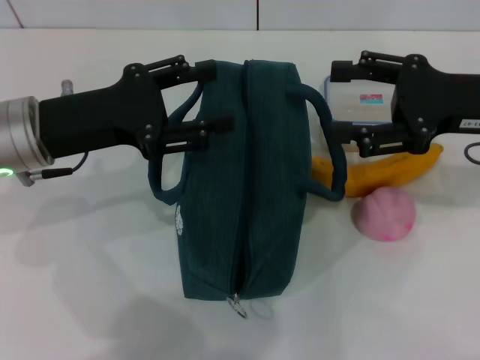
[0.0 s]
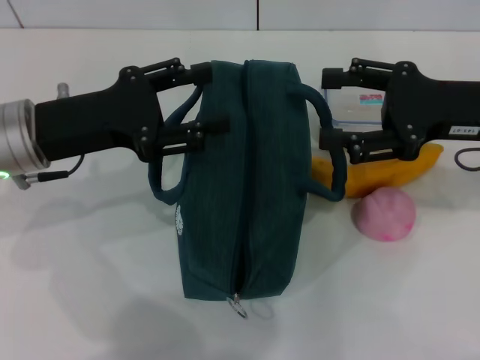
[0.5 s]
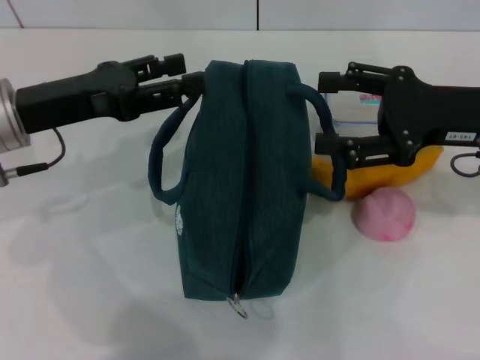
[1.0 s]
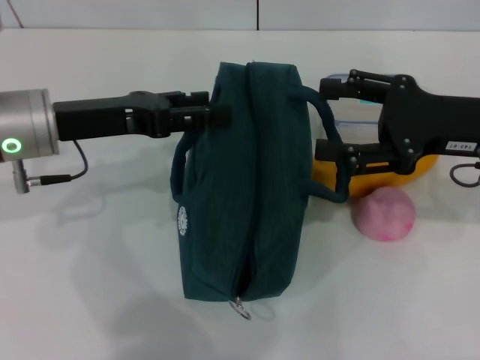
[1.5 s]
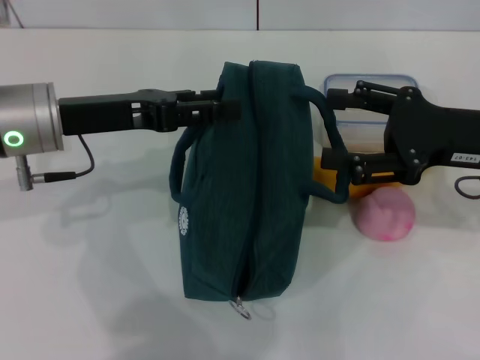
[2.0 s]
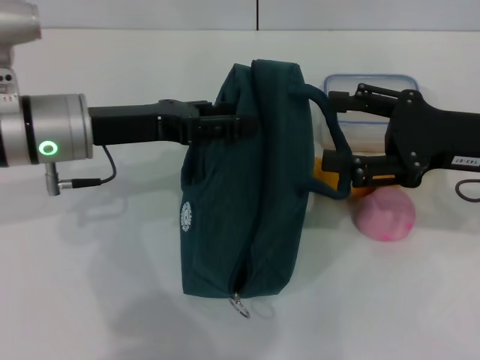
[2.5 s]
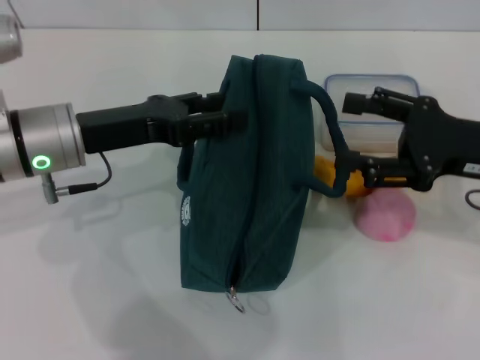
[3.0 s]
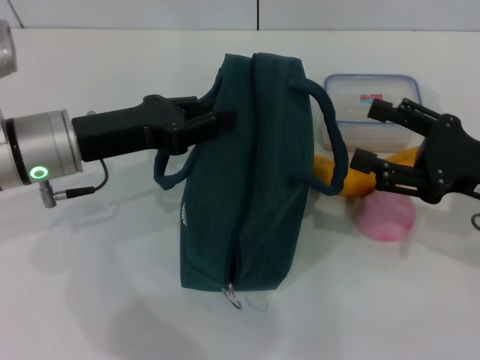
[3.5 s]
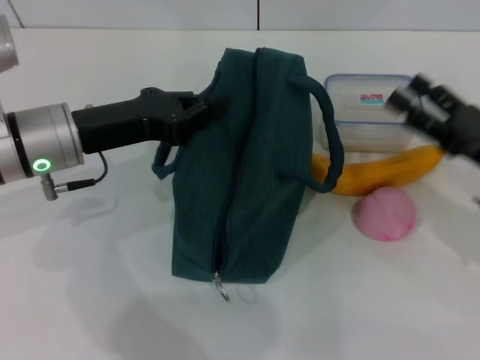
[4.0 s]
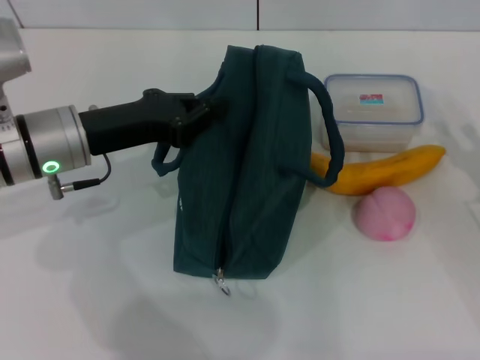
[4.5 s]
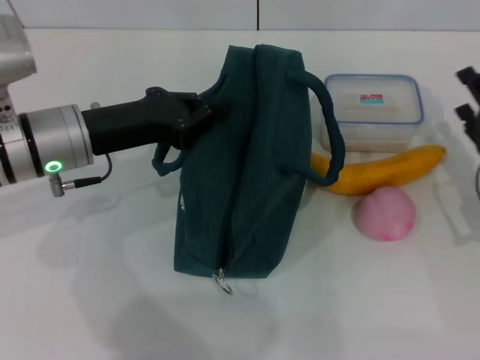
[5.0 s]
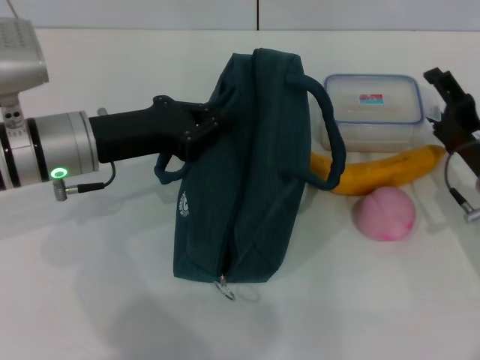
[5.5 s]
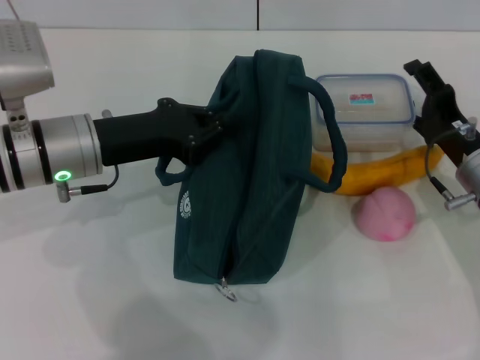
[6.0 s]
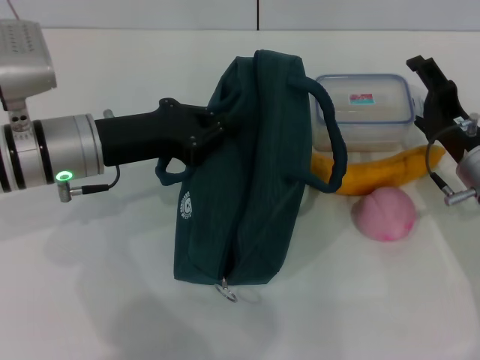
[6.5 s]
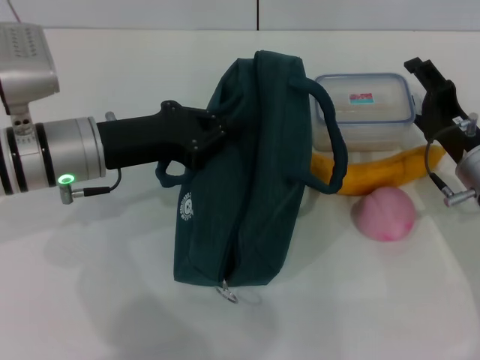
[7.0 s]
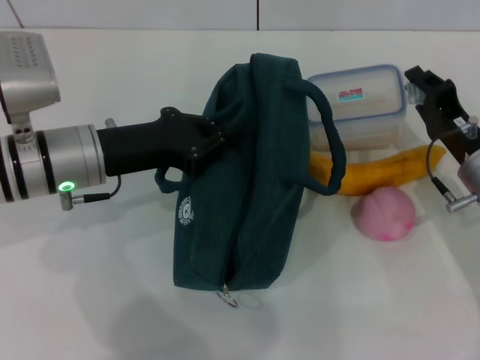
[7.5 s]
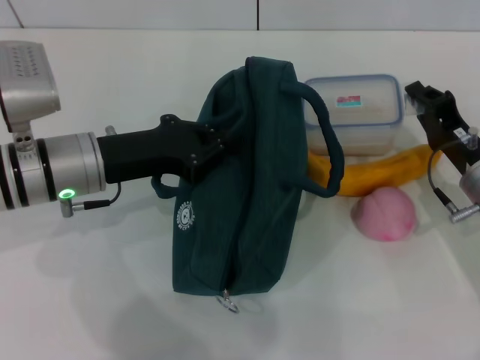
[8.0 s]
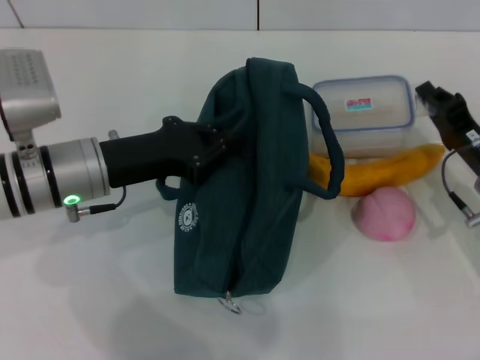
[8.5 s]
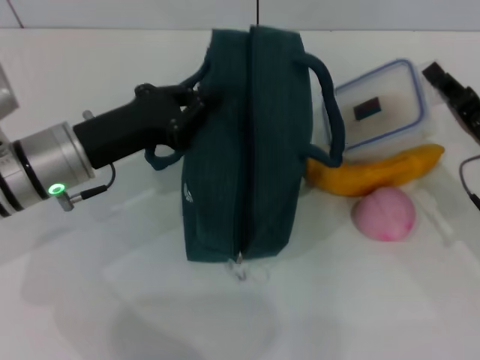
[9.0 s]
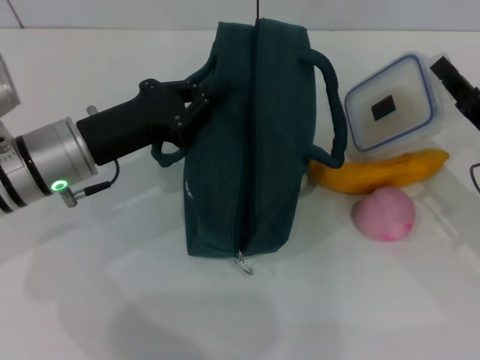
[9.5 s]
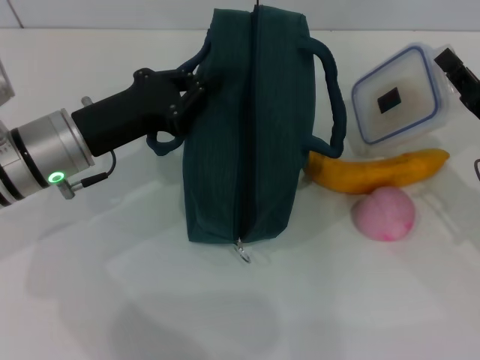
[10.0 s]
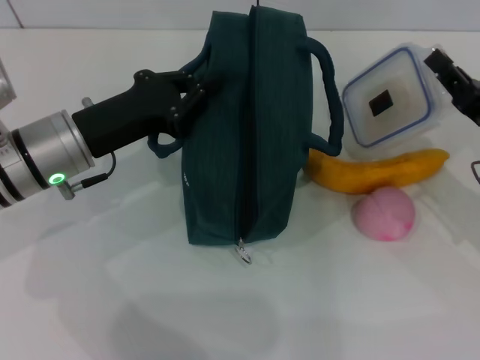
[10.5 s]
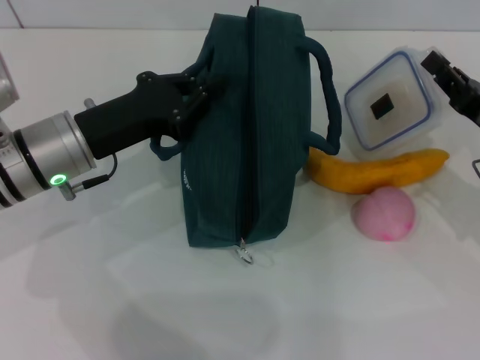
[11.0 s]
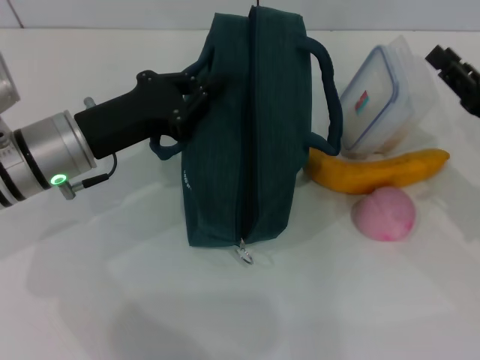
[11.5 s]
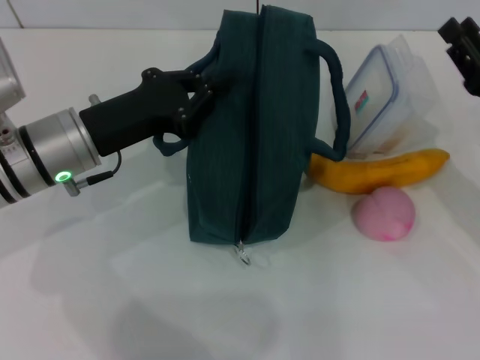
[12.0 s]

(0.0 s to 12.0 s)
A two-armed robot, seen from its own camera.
Step, 0.0 s - 4.5 s: Hold the lunch bag with your left hand.
2.0 s - 4.0 s: The right gripper heads downward, covering about 5 cm, while the left gripper closes.
4.0 s - 6.0 s: The right gripper ends up some 10 cm from where it was.
6.0 s - 8.0 s: The right gripper closes its fingers.
8.0 s - 10.0 s: The right gripper changes place by roughly 5 cm.
10.0 s - 12.0 s: The right gripper opens its fingers.

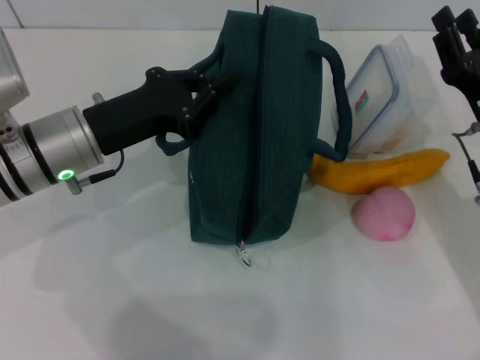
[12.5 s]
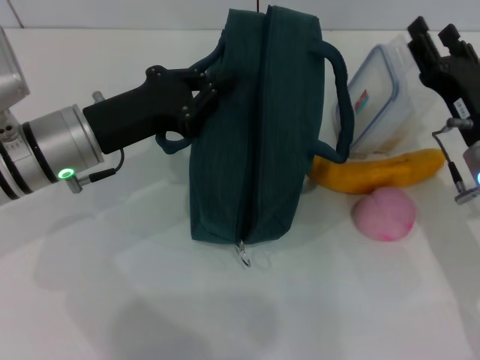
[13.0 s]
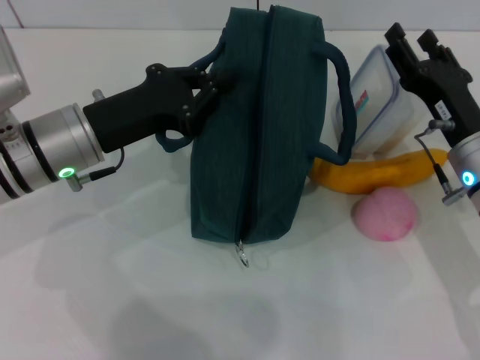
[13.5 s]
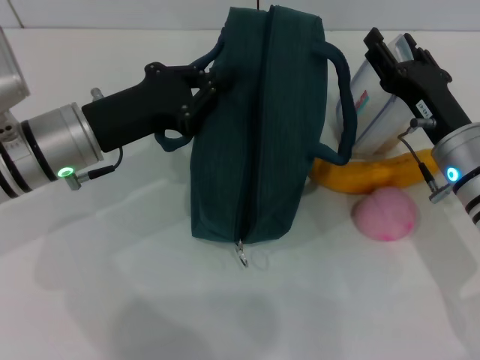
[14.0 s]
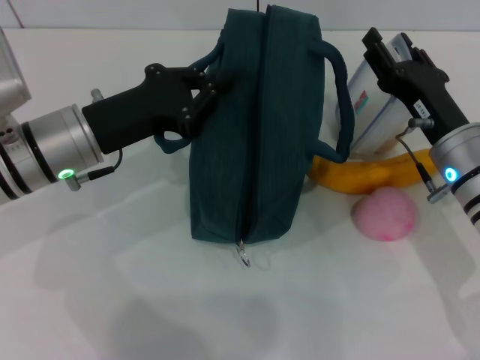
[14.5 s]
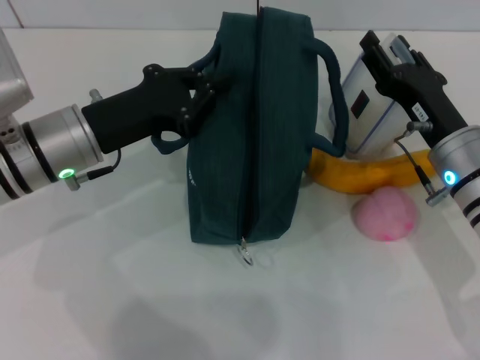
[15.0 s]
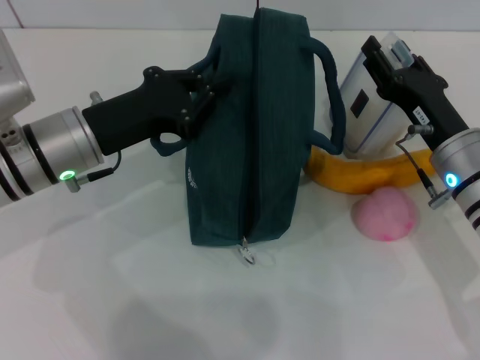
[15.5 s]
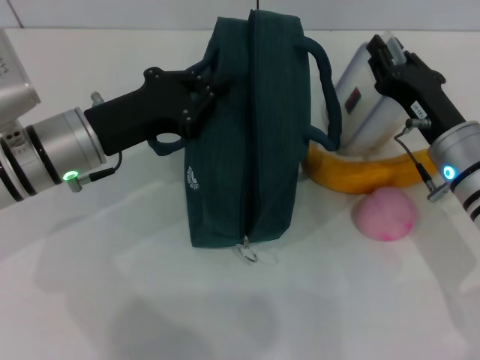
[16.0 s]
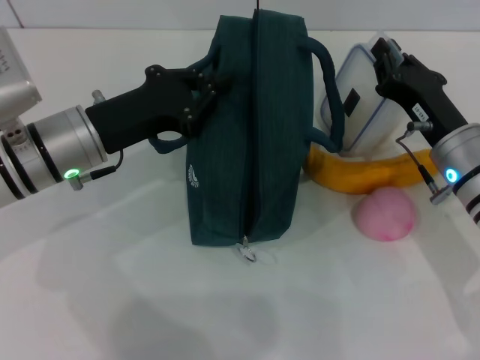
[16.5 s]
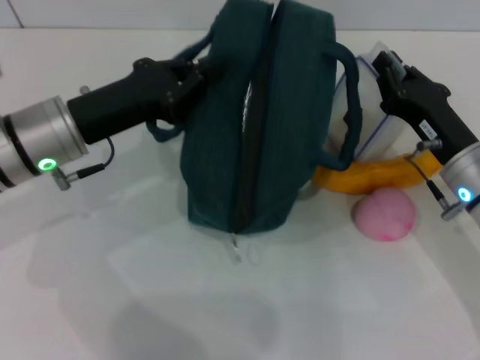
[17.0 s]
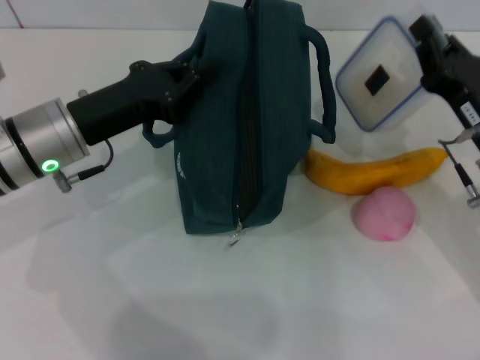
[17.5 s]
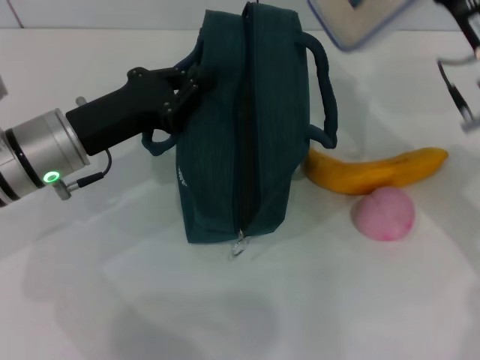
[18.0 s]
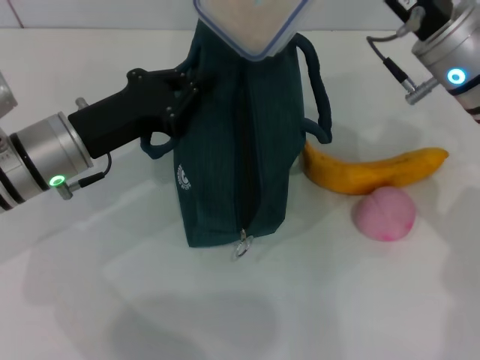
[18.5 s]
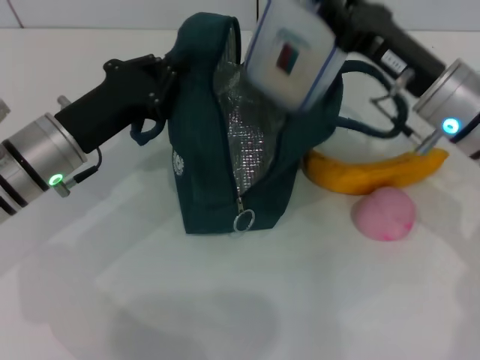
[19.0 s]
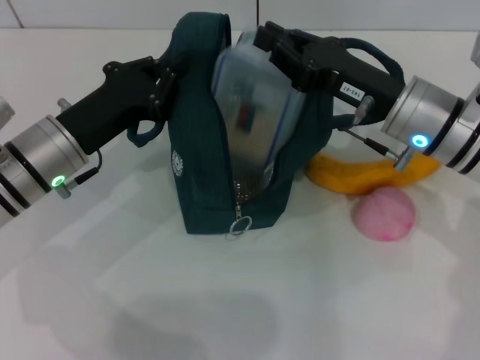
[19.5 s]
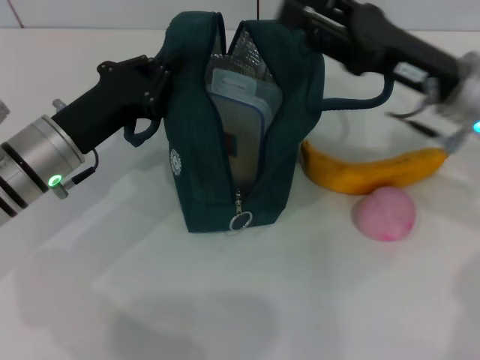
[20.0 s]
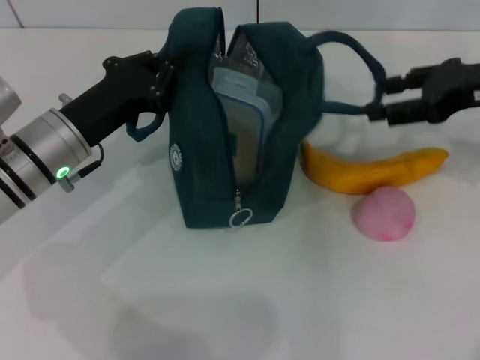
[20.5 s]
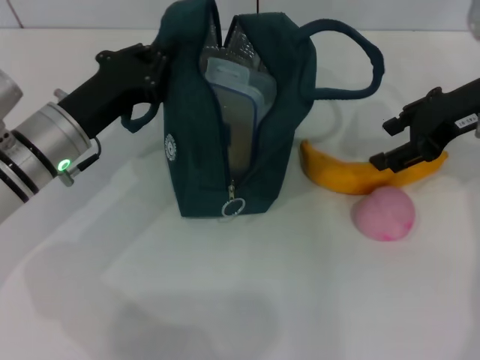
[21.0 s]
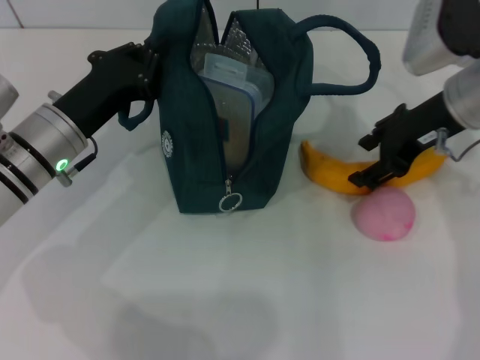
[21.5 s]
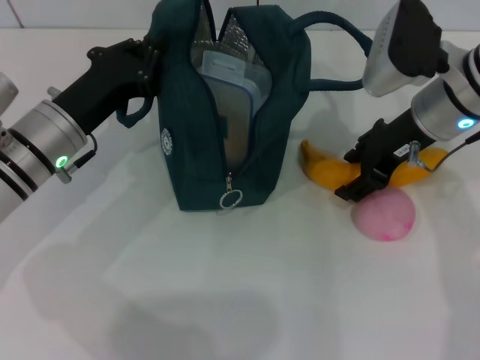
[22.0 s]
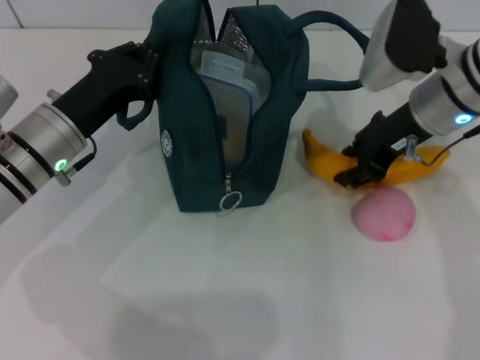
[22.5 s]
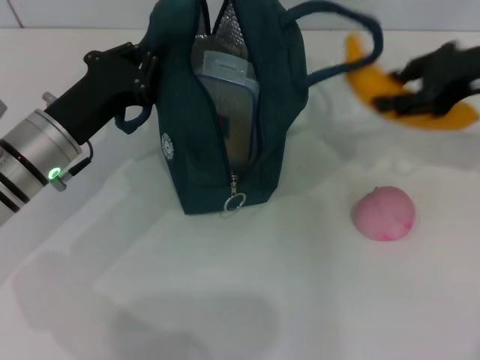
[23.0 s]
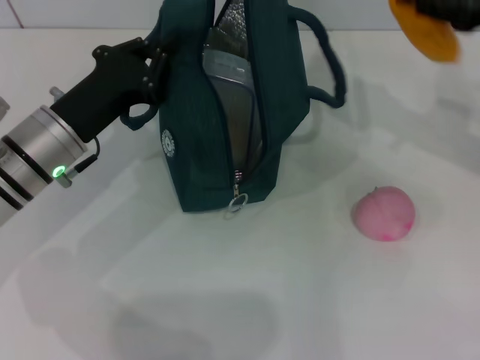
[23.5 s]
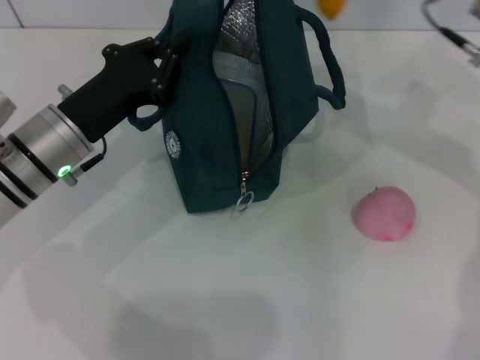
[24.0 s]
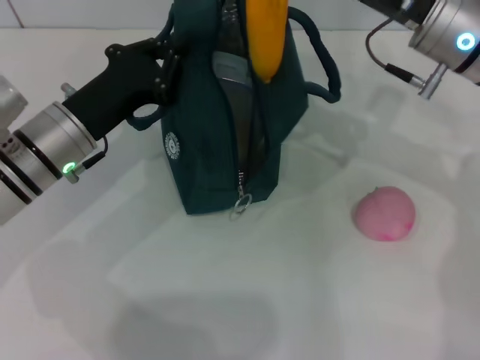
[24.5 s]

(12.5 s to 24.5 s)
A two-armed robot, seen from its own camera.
Step, 12.5 s - 16.5 s: Pick up the lunch box with your right hand.
Step, 17.0 s - 19.5 s: Place the lunch box into the lunch bag with your right hand.
Step, 20.5 s - 22.0 s: Take the banana with your right hand.
12.5 s - 14.5 s: The grippers make only small movements.
14.5 s - 16.5 s: The right gripper closes.
16.5 s - 18.5 s: The right gripper moves upward, roughly 10 cm.
18.5 s - 20.5 s: The right gripper heads to the right, covering approximately 10 cm, and opens up.
20.5 s - 22.5 s: The right gripper goes approximately 10 cm to the left.
22.5 s - 24.5 s: The right gripper travels to the right and back again, approximately 10 cm each way.

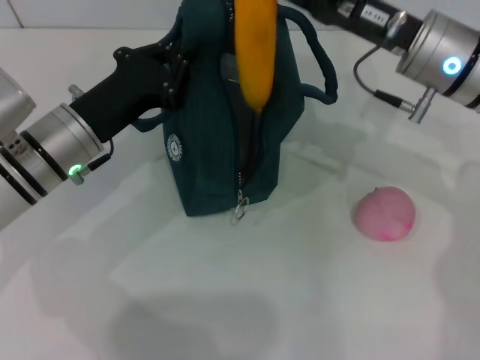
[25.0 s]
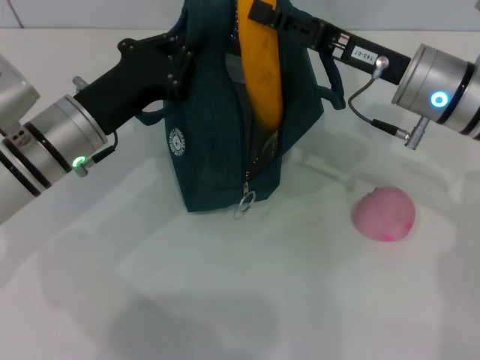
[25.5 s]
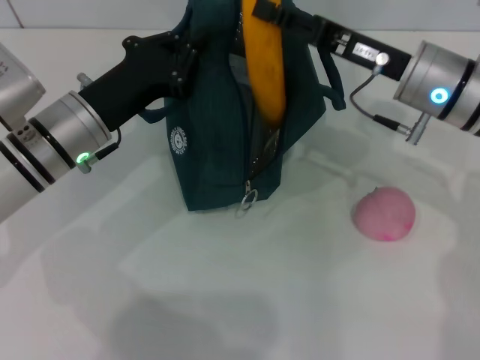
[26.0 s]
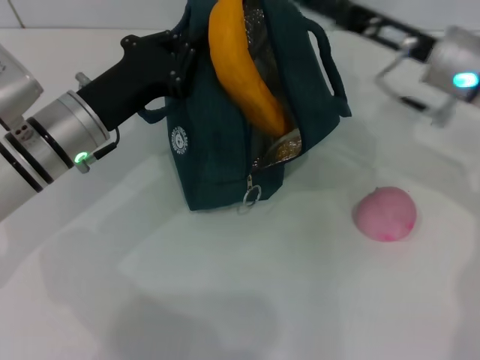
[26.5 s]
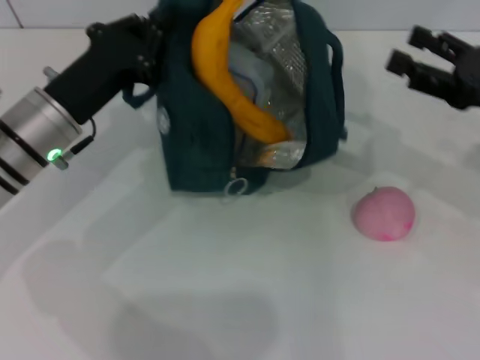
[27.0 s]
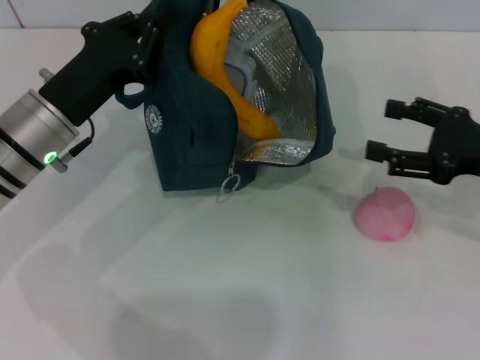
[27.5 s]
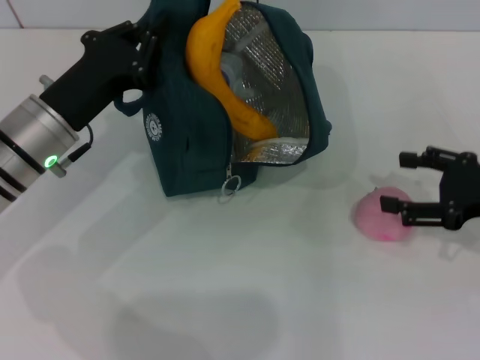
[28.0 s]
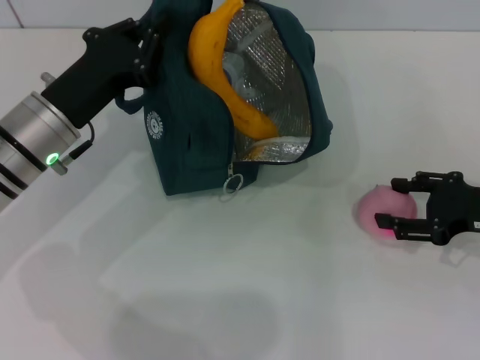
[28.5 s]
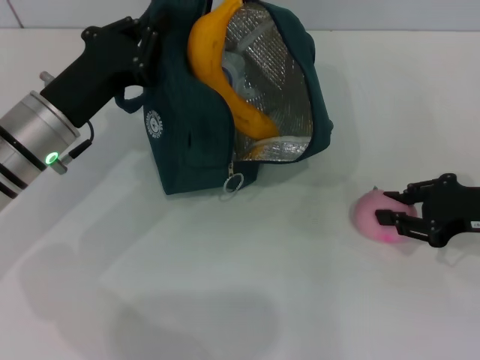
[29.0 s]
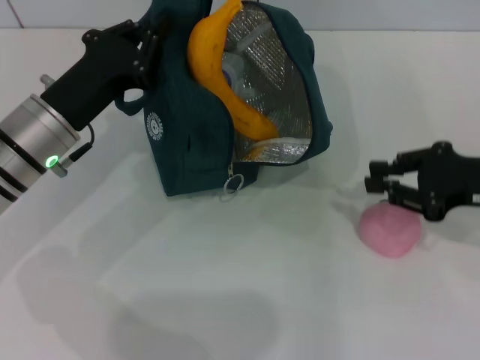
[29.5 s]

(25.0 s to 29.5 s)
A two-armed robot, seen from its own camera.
25.0 s - 27.0 s: The right gripper goes approximately 15 cm to the right and backward, and opens.
27.0 s - 29.5 s: The right gripper closes its fingers.
